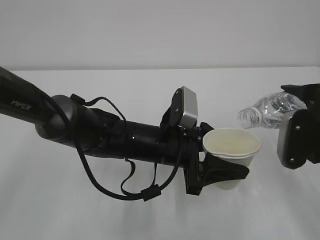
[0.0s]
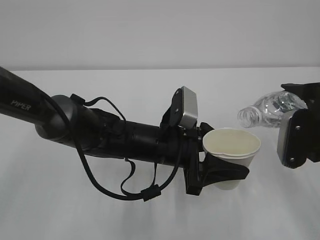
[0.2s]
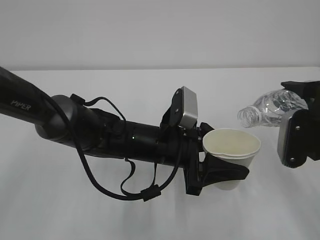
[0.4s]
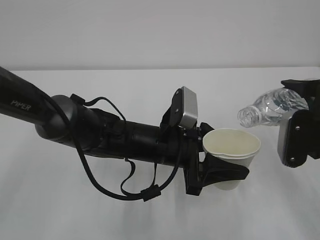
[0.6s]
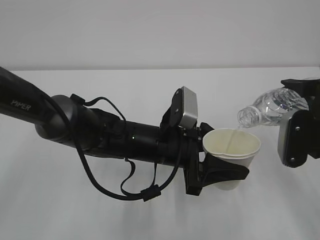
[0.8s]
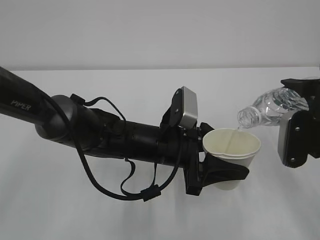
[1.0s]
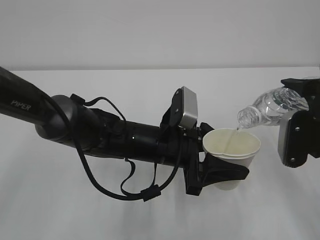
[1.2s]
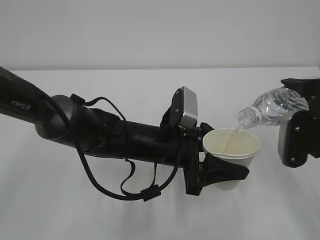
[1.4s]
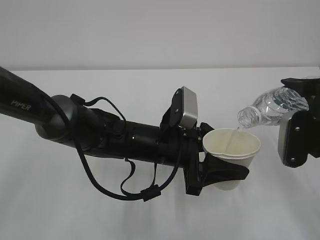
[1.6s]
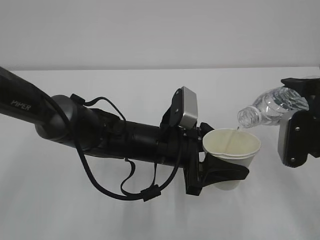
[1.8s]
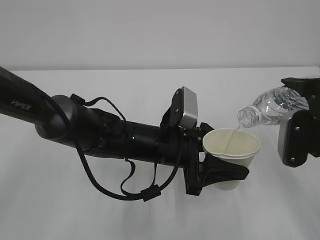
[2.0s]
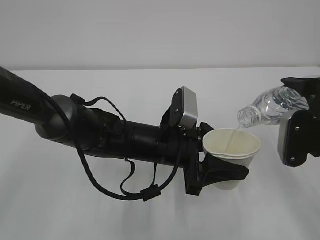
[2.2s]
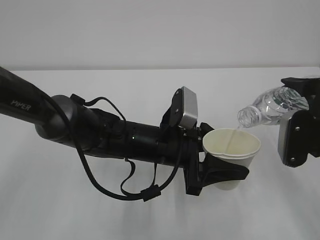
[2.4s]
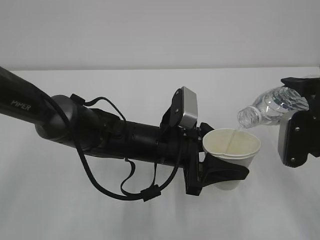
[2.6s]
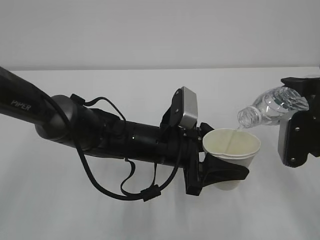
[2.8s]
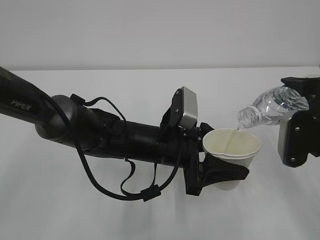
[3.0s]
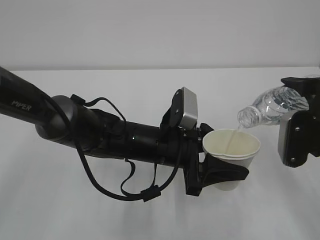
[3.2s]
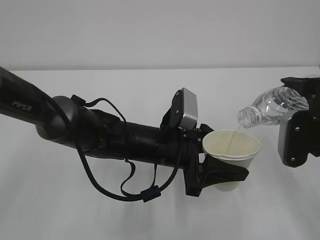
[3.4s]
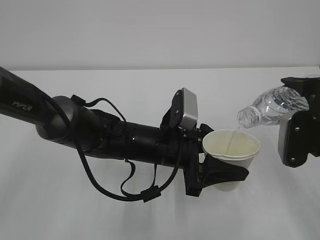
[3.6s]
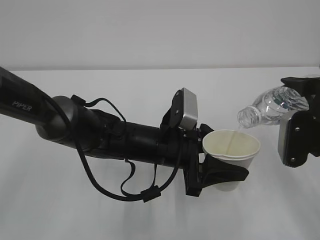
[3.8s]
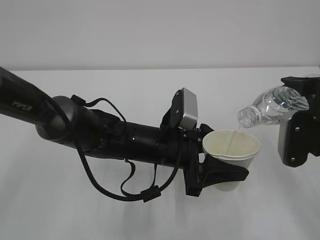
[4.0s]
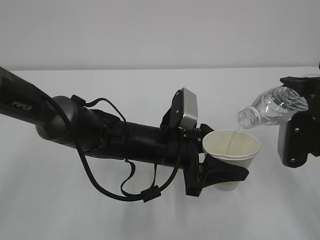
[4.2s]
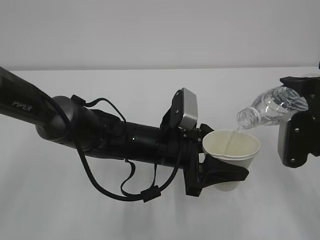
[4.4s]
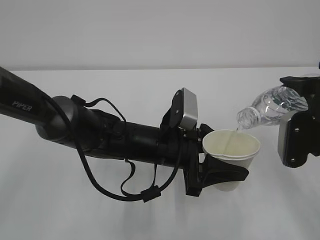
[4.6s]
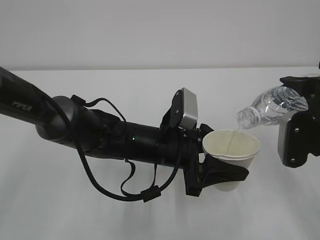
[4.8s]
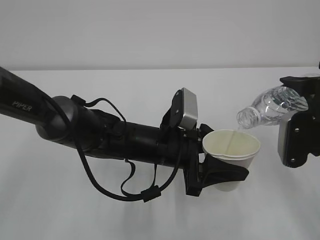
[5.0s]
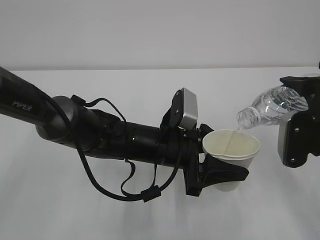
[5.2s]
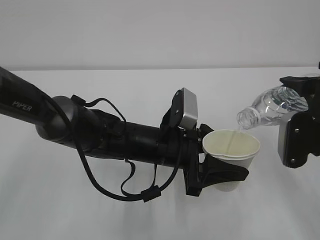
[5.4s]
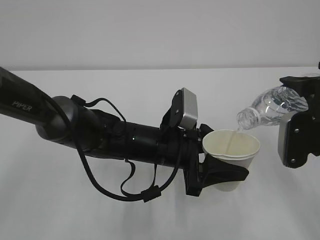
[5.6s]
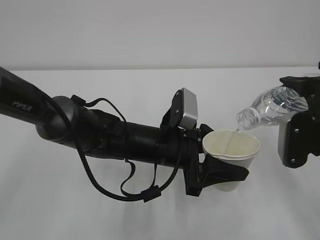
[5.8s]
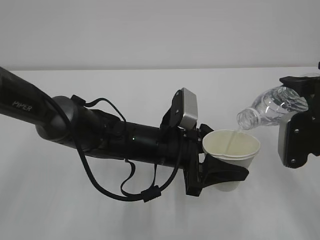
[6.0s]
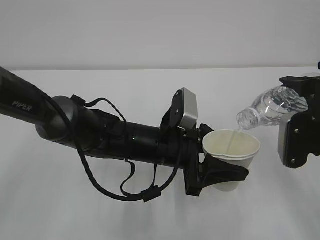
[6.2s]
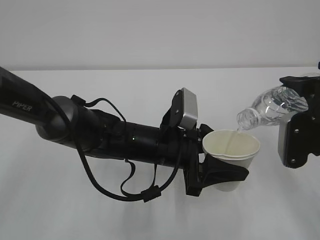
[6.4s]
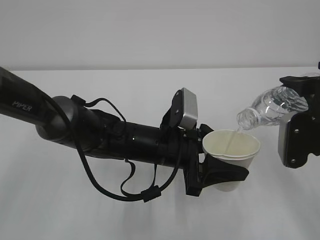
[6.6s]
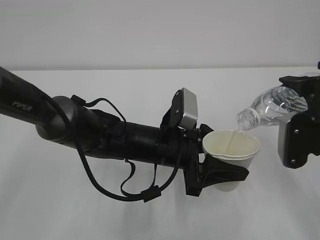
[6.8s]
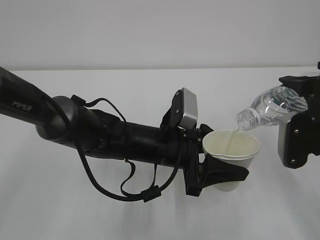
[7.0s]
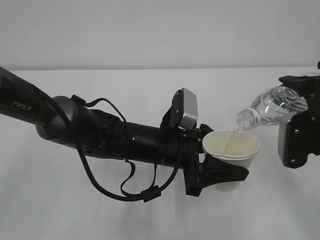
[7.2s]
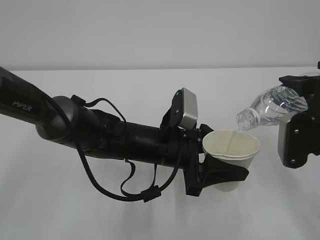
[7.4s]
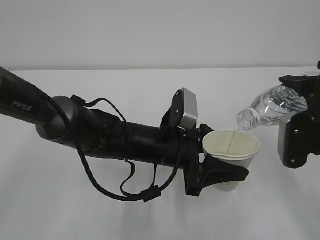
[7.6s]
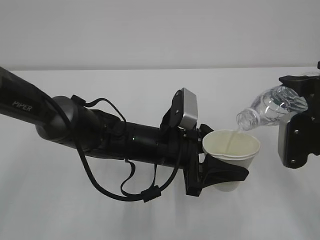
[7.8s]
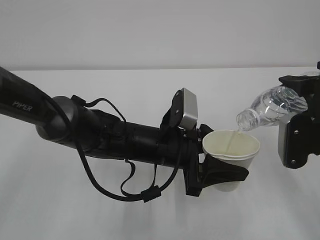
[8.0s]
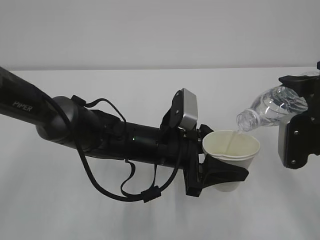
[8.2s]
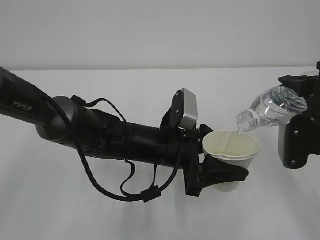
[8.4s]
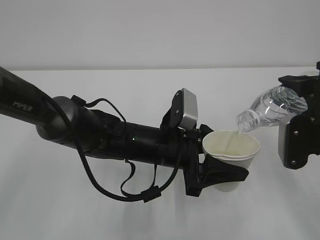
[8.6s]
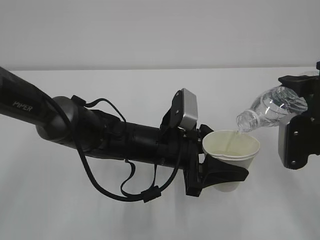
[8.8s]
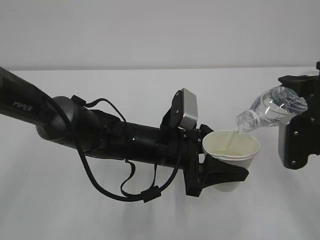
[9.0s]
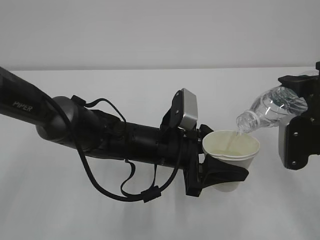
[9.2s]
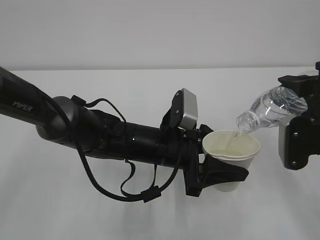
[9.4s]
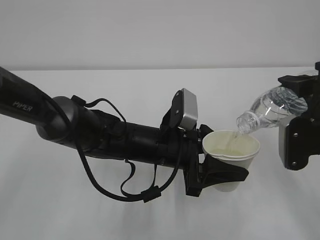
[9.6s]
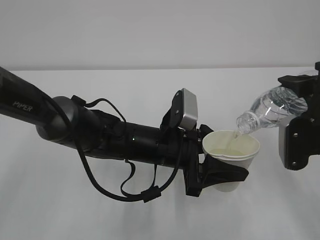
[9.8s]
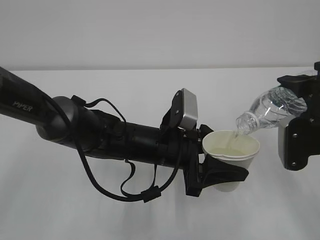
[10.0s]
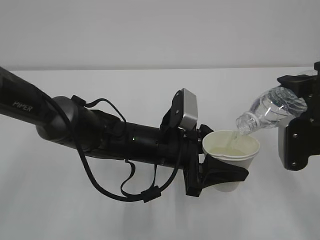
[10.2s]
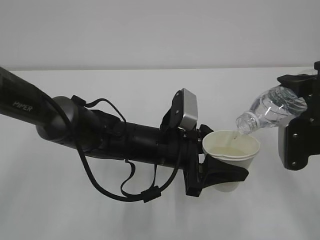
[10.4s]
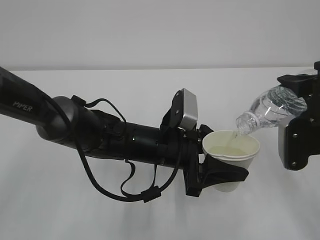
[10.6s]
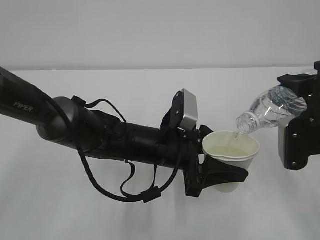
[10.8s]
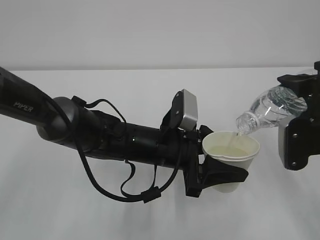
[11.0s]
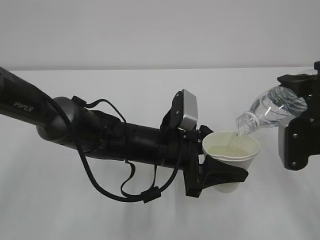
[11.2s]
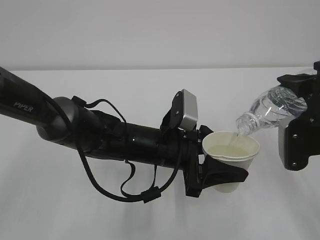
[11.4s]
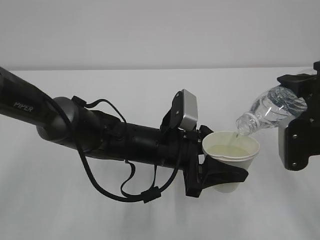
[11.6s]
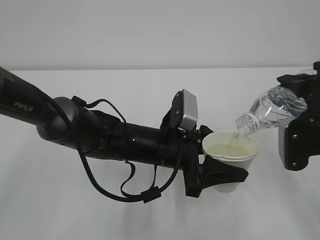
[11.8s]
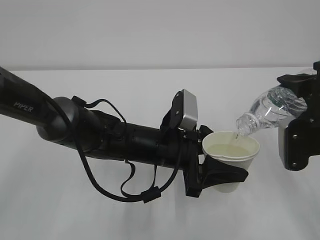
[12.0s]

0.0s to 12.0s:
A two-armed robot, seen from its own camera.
0.0s to 1.6s: The grippers stay close to where they were, moving slightly.
1.6s to 7.6s: The two grippers keep their place.
7.6s to 10.4s: Neither gripper changes place.
10.4s to 12.0s: Neither gripper changes place.

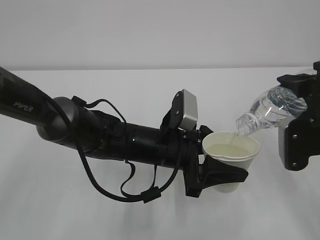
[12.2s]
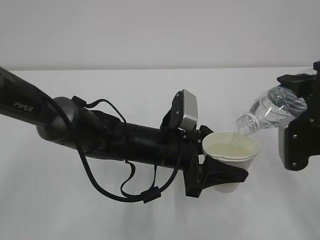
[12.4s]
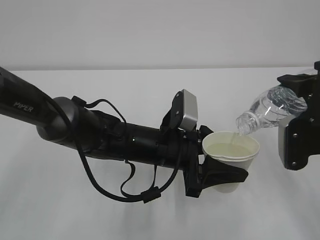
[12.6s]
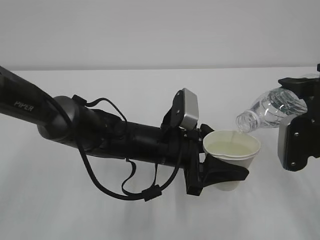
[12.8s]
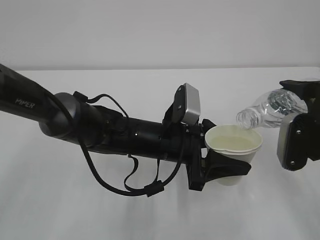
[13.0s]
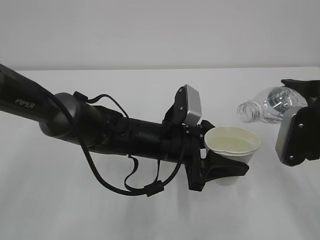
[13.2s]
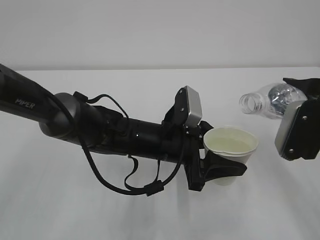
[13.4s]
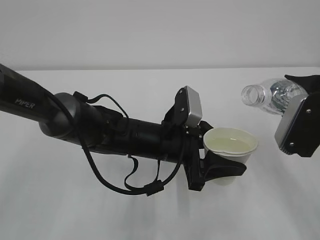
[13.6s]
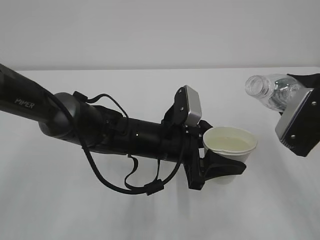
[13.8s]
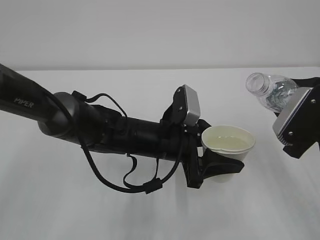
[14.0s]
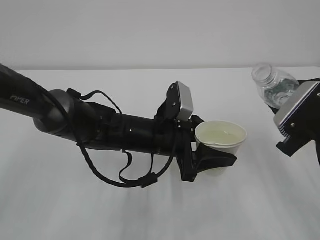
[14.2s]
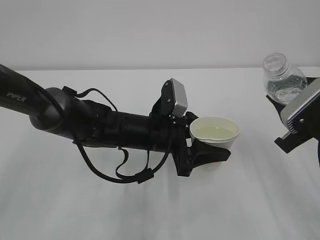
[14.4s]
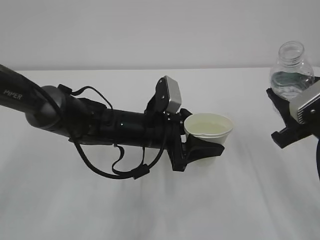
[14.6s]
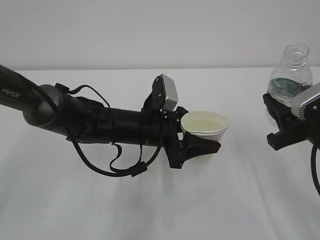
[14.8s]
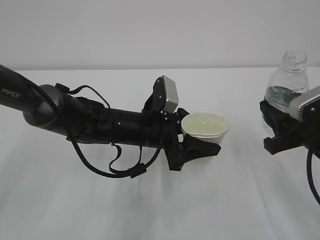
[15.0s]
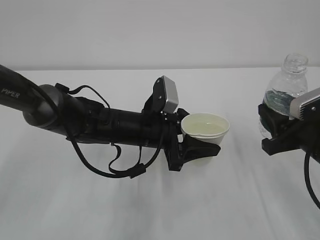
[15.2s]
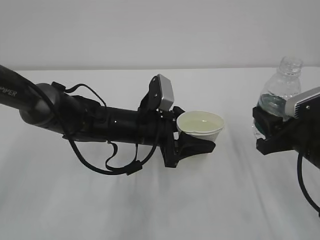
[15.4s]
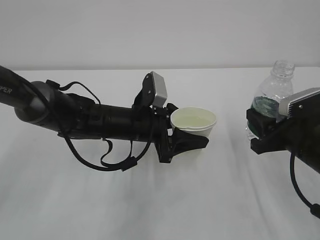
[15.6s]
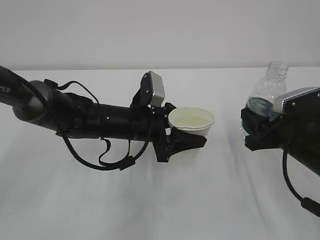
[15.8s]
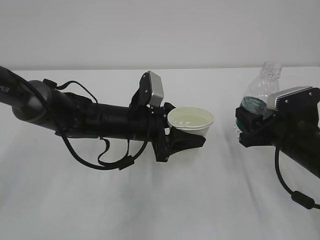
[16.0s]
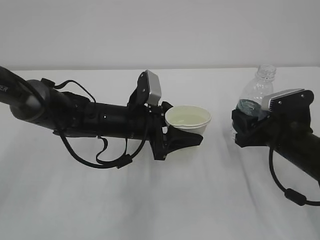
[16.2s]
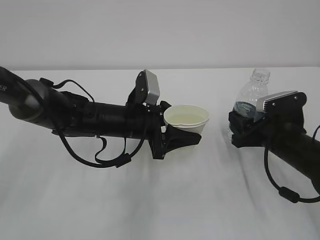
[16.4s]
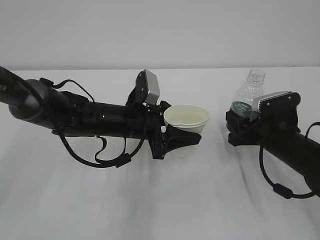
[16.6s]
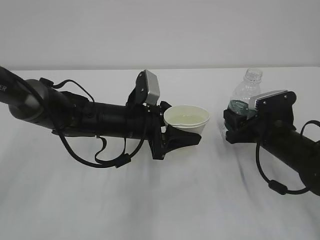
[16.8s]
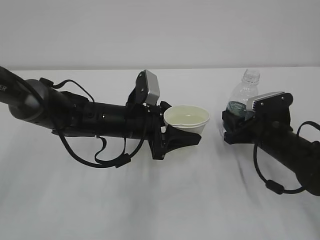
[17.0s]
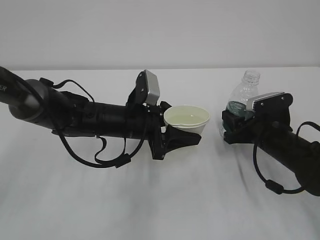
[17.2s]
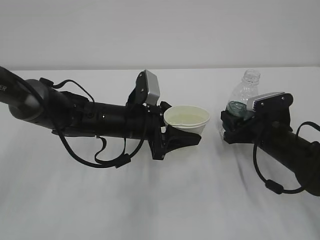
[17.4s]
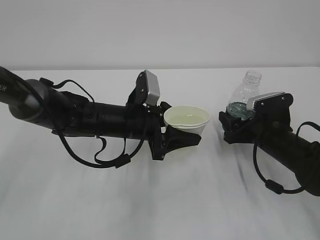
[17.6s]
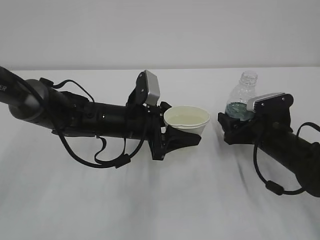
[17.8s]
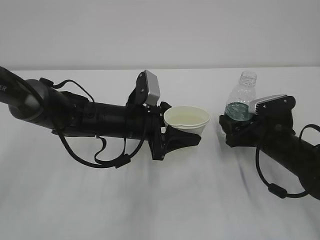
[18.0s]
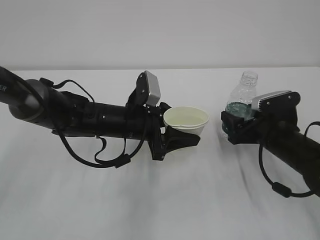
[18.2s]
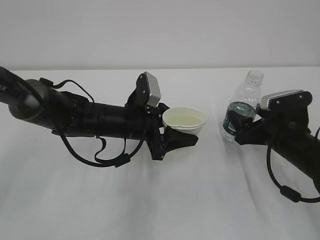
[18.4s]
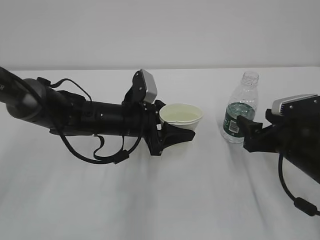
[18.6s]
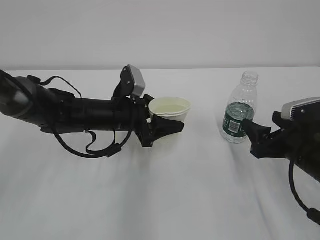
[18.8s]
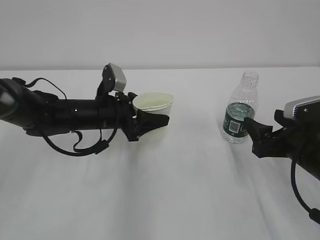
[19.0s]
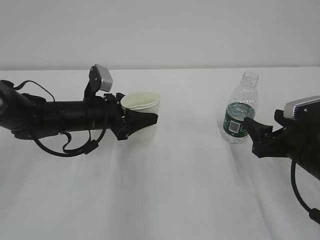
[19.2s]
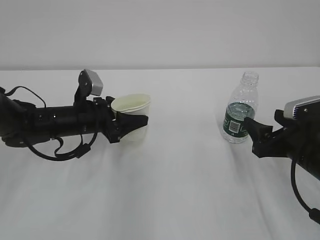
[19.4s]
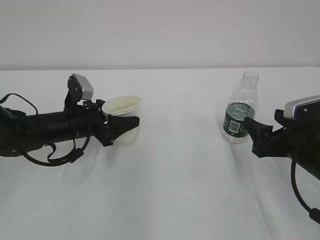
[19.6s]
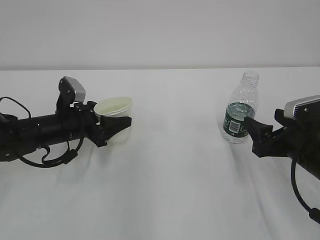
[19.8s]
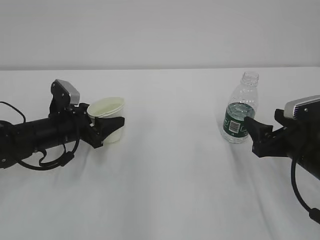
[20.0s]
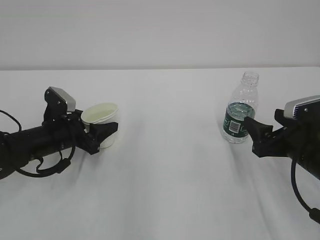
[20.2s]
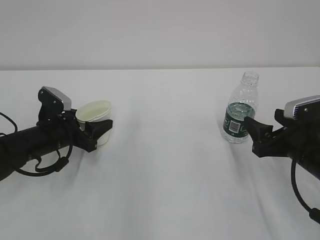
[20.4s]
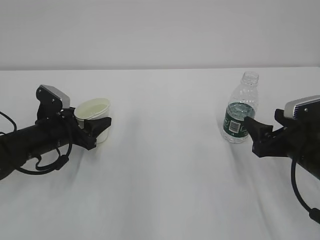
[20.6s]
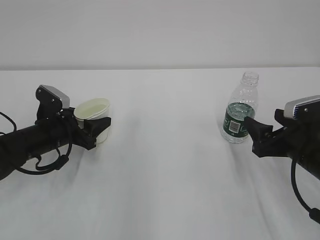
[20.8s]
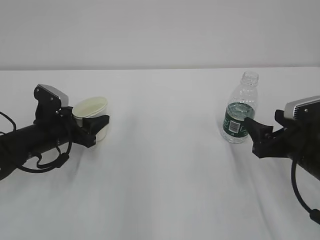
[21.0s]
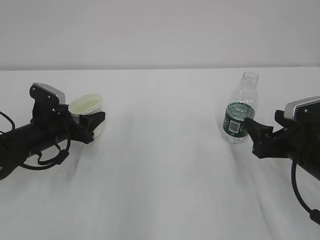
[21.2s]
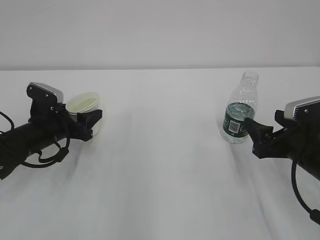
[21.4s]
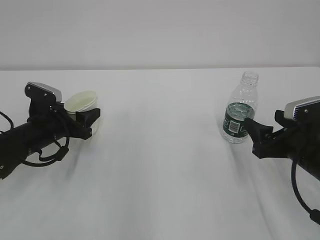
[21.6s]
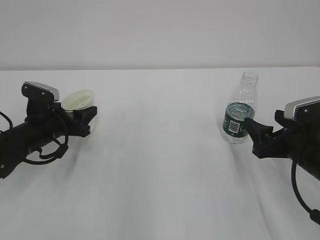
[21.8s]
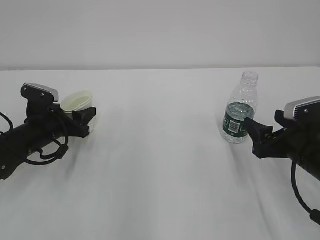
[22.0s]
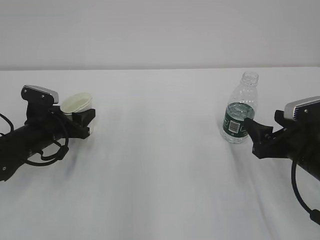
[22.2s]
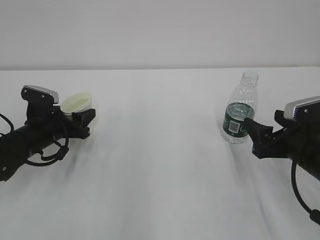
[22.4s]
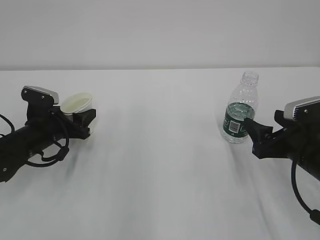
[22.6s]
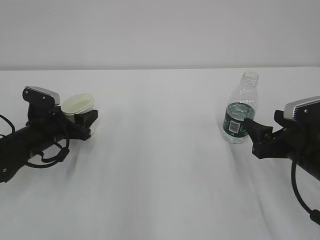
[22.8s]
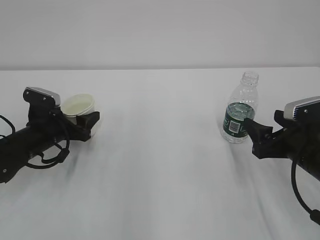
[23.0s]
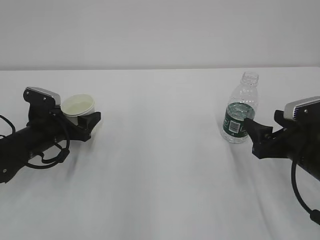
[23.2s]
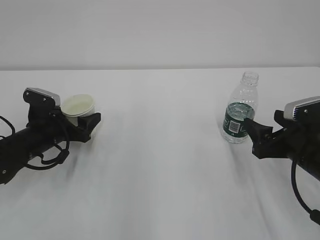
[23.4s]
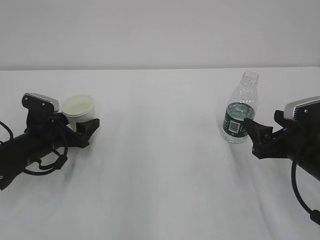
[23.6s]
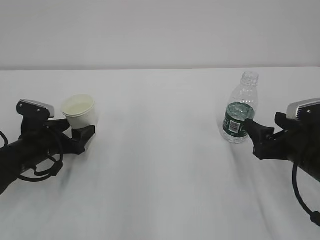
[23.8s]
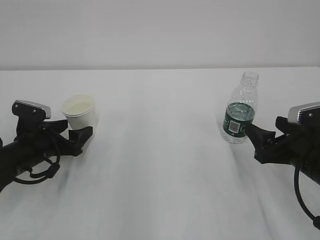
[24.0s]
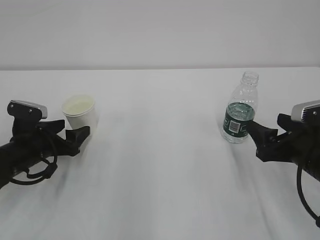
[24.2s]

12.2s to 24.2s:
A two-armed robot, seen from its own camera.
15.2s to 16.6s: The right gripper heads forward and downward, covering some 10 cm.
16.6s to 18.2s: The right gripper opens up.
18.2s to 19.8s: The right gripper goes approximately 5 cm backward. The left gripper is displaced to the left by about 15 cm.
21.2s to 22.6s: There are only small adjustments of the grippers.
22.6s to 24.2s: The left gripper opens.
